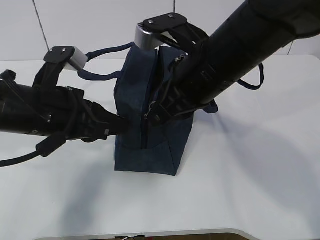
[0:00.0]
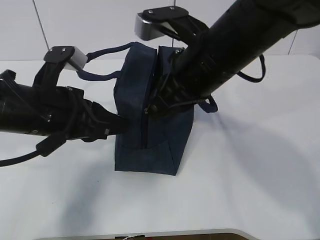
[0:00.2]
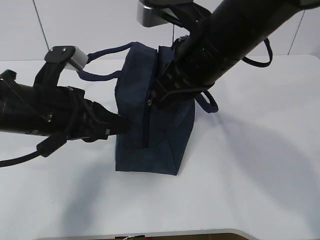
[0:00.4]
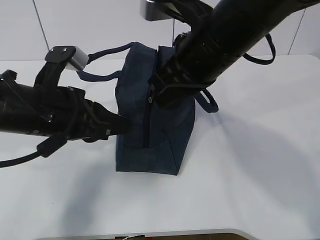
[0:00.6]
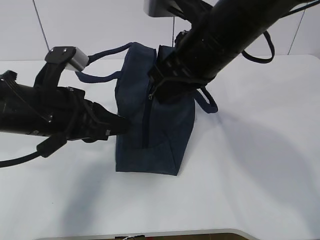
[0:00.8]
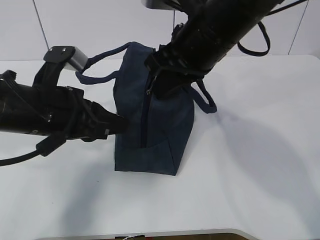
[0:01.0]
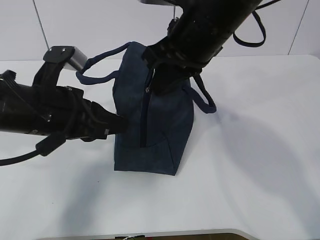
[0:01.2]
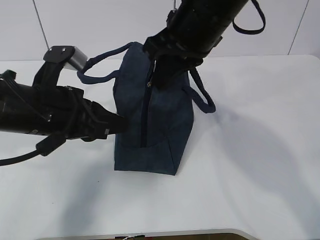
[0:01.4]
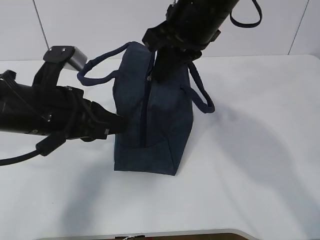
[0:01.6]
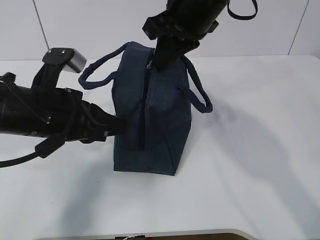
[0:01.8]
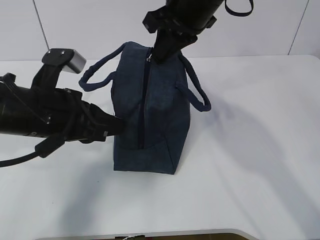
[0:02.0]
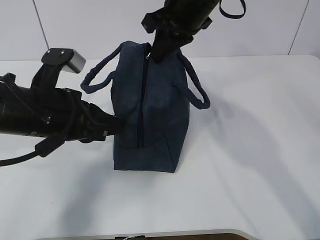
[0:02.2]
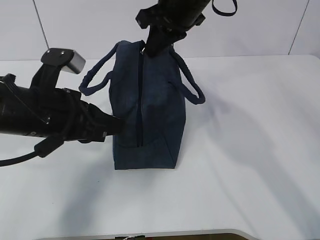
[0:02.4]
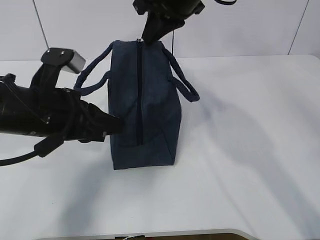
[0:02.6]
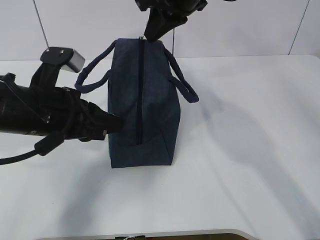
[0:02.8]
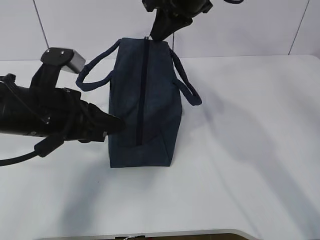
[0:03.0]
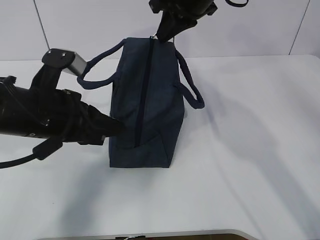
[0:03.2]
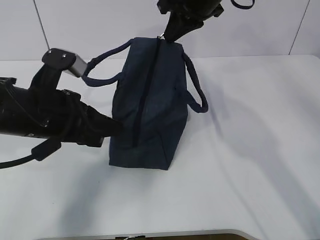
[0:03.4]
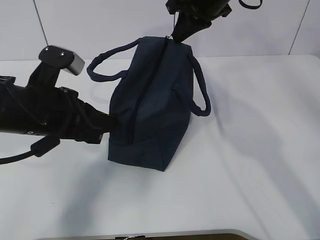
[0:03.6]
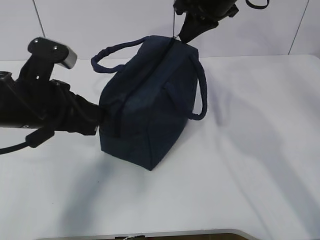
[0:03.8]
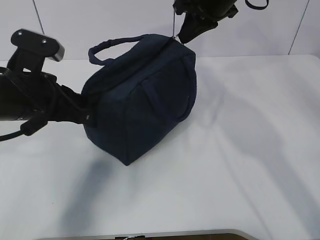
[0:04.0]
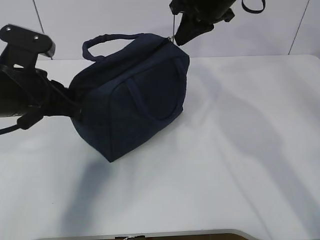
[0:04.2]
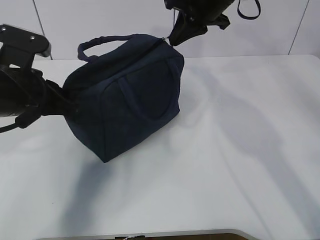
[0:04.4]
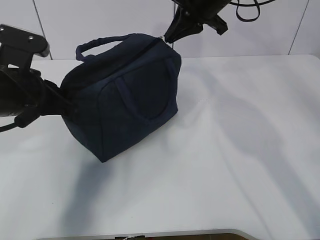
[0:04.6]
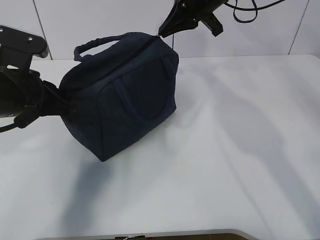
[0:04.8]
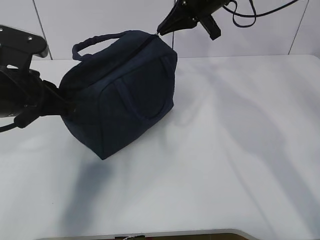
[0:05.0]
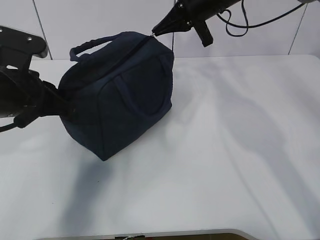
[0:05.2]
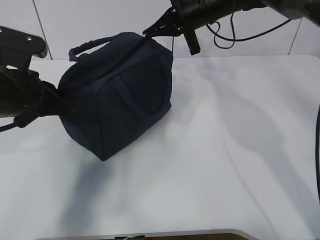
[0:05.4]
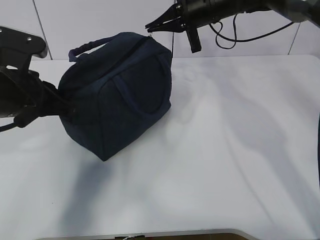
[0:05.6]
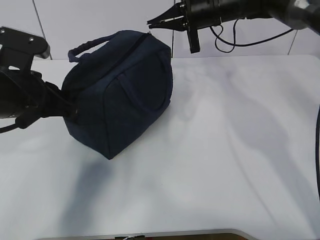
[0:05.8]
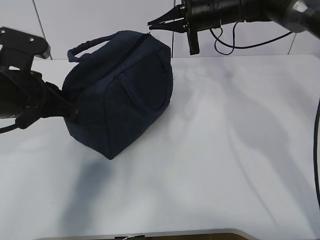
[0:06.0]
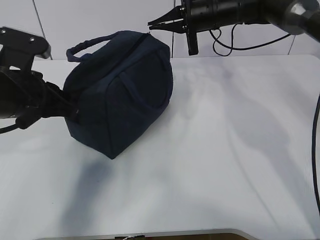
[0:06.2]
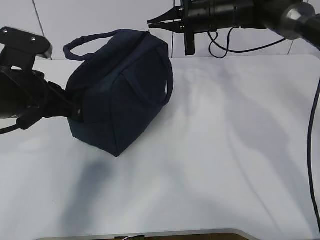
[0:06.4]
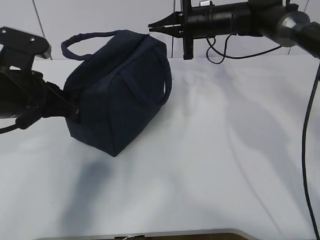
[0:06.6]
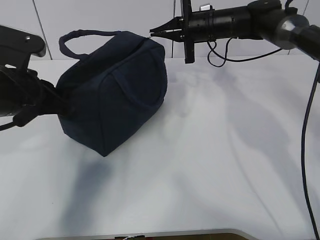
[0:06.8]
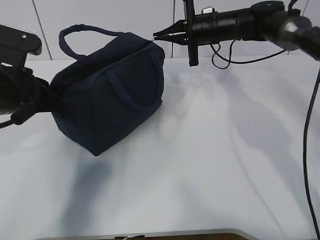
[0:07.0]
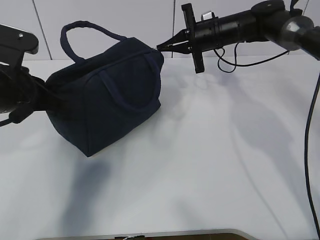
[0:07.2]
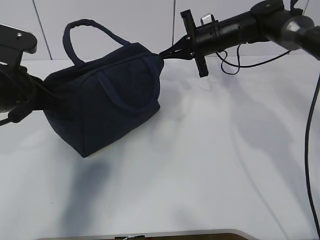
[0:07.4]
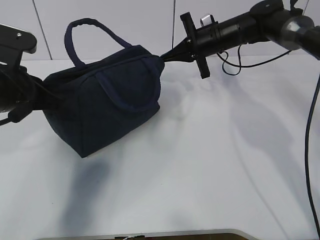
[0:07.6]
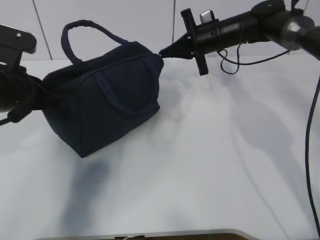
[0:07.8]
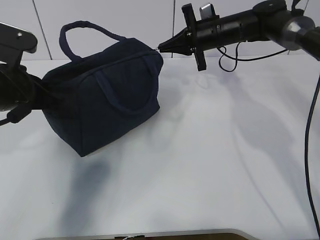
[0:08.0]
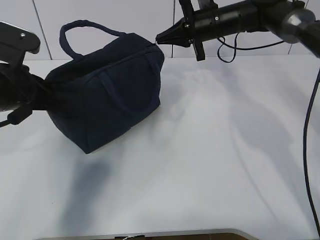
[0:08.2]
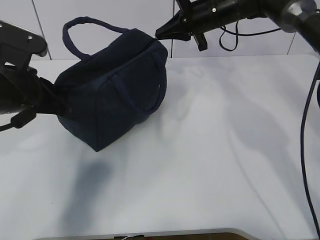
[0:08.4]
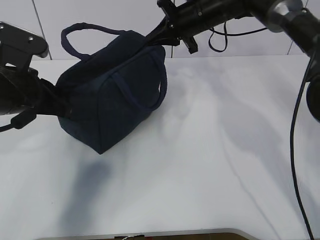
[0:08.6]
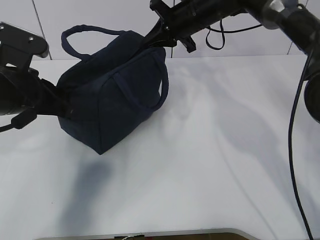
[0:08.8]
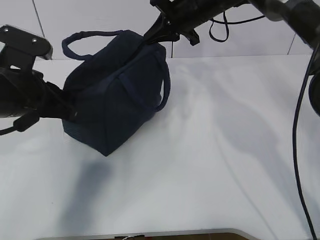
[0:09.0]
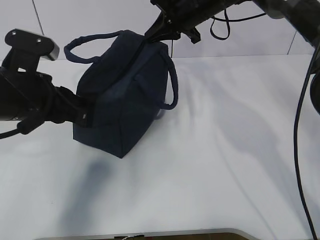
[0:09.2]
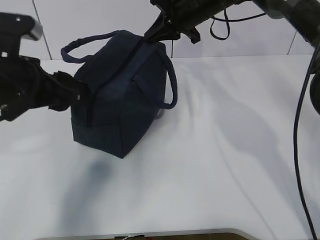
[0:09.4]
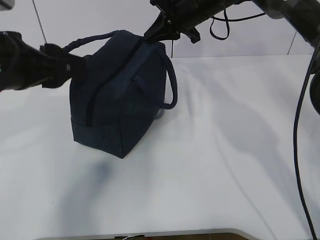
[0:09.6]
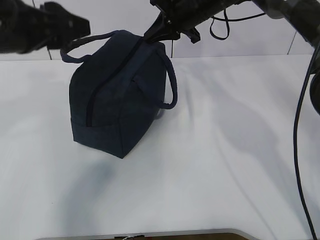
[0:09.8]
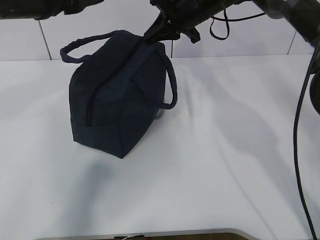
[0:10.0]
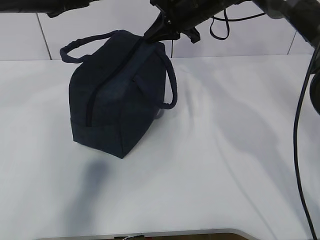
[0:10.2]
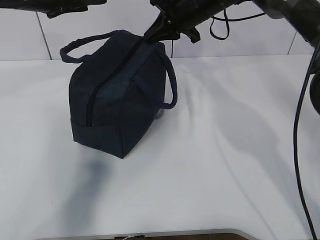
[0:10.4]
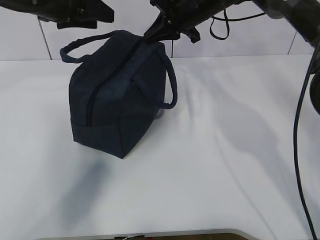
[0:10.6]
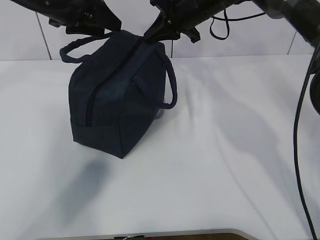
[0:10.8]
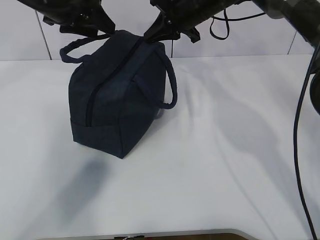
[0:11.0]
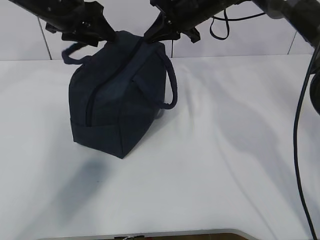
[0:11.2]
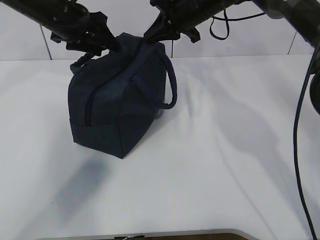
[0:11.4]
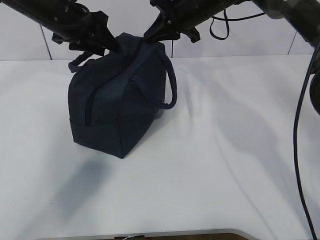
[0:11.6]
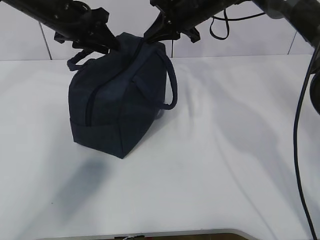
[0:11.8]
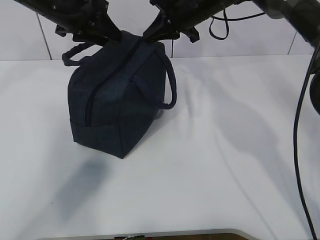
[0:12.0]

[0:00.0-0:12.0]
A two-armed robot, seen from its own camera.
Step, 0:00.0 to 0:03.4: Pull the zipper with your right hand.
Step, 0:03.6 to 0:05.6: Grab the lunch bag with your left hand.
0:00.0 to 0:01.6: The right gripper goes roughly 5 cm forward.
0:01.6 to 0:03.0: The right gripper travels forward by about 10 cm.
0:03.0 to 0:04.4: The left gripper ends up about 5 cm from where it was, while the right gripper ends up some 5 cm from where it was.
0:04.4 to 0:06.0: The right gripper changes place by some 5 cm.
0:06.0 to 0:07.6: The right gripper moves downward, roughly 5 cm.
0:07.6 to 0:09.0: The right gripper is displaced upward and to the left by some 10 cm.
0:09.0 to 0:10.4: The left gripper travels upward and forward by approximately 15 cm, and opens.
0:10.4 to 0:12.0: The left gripper goes approximately 10 cm forward.

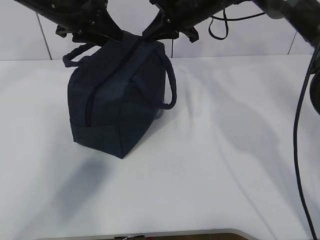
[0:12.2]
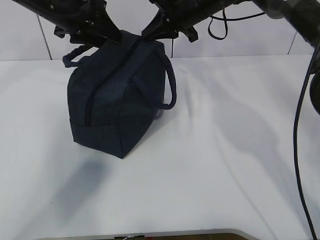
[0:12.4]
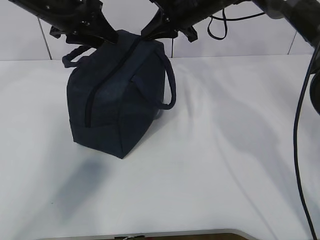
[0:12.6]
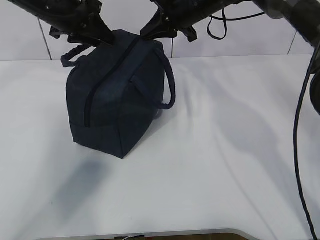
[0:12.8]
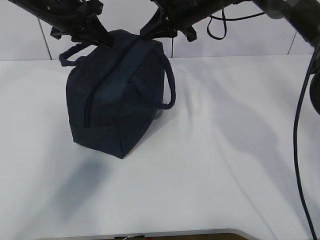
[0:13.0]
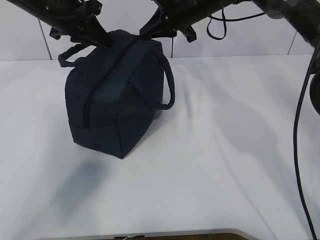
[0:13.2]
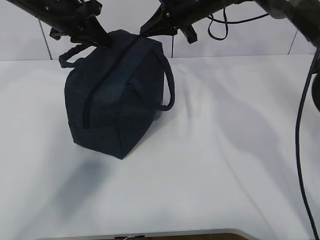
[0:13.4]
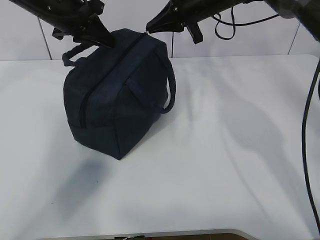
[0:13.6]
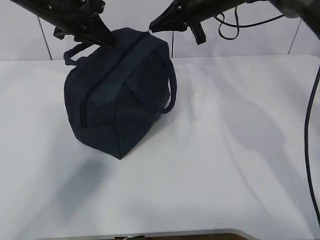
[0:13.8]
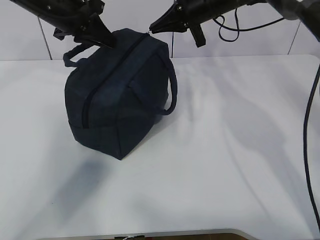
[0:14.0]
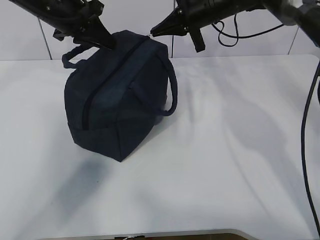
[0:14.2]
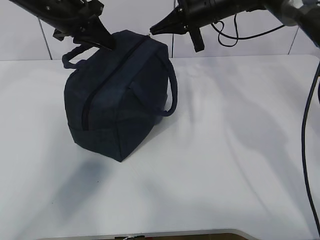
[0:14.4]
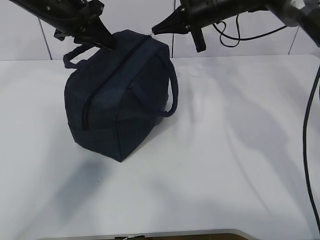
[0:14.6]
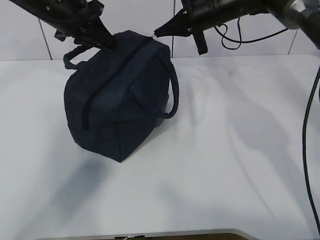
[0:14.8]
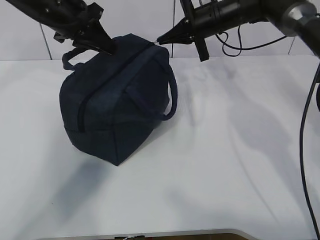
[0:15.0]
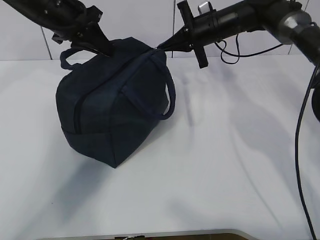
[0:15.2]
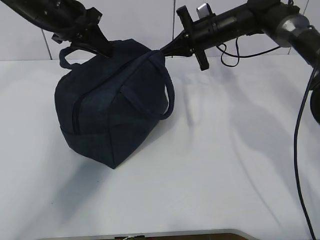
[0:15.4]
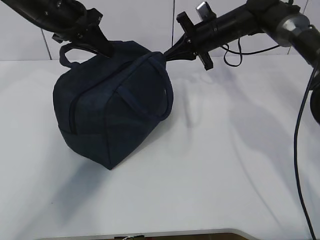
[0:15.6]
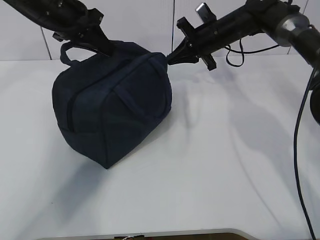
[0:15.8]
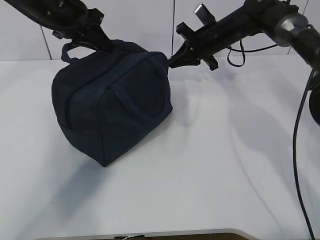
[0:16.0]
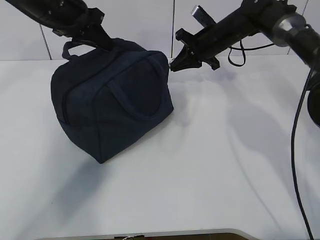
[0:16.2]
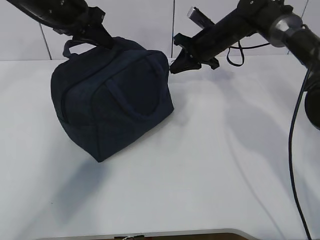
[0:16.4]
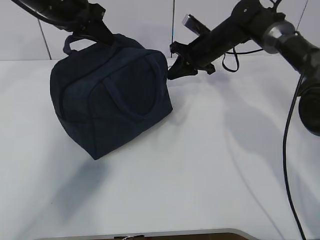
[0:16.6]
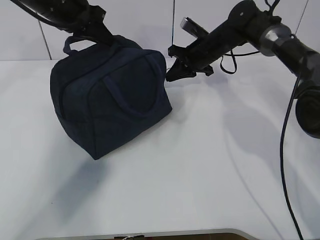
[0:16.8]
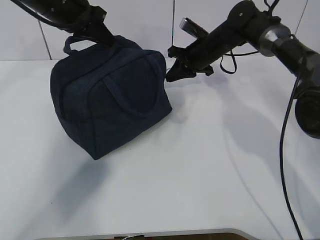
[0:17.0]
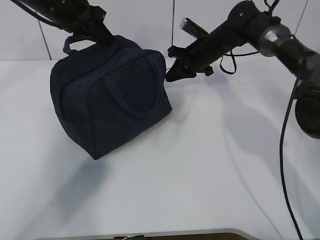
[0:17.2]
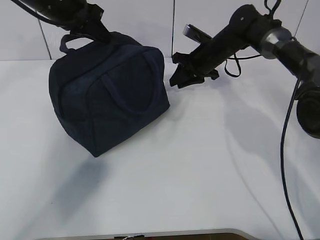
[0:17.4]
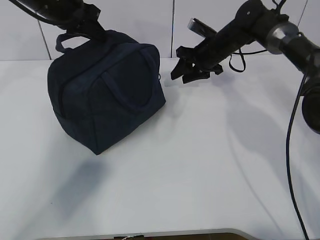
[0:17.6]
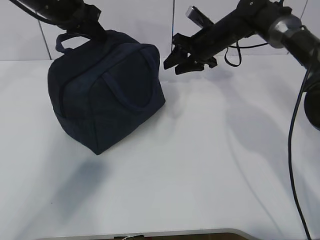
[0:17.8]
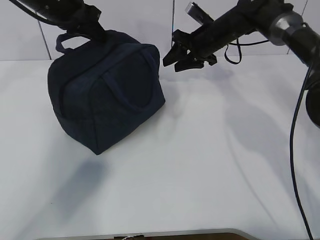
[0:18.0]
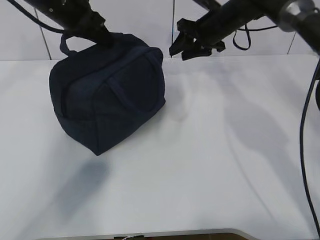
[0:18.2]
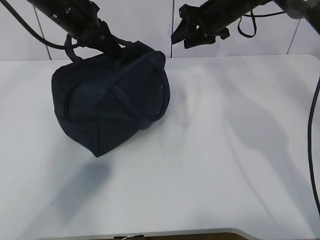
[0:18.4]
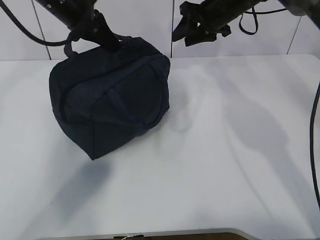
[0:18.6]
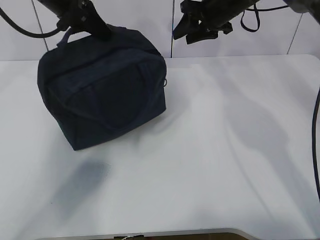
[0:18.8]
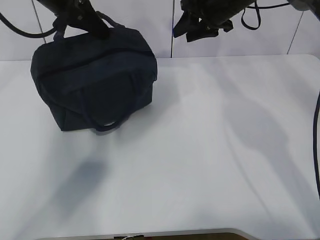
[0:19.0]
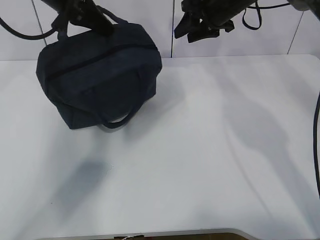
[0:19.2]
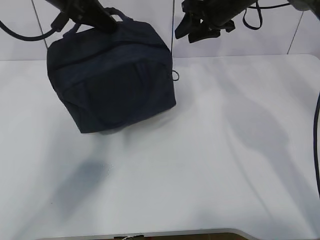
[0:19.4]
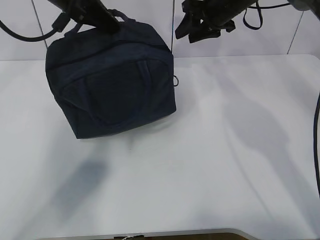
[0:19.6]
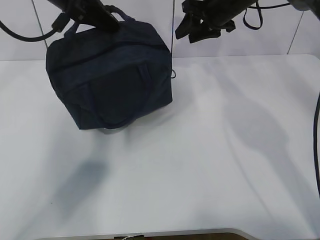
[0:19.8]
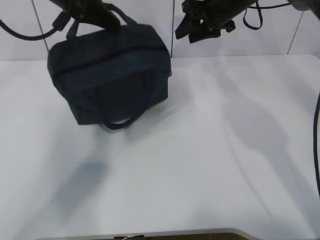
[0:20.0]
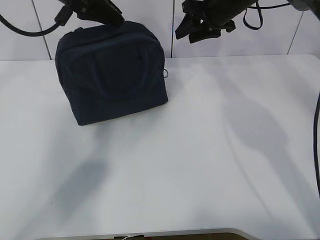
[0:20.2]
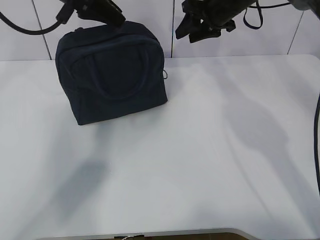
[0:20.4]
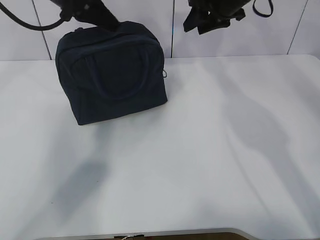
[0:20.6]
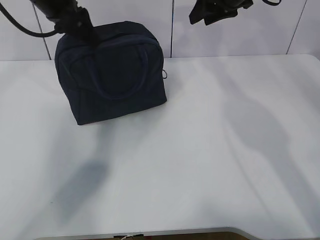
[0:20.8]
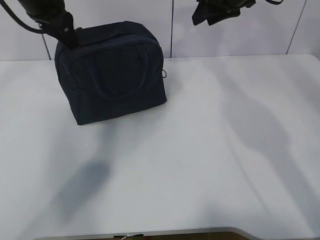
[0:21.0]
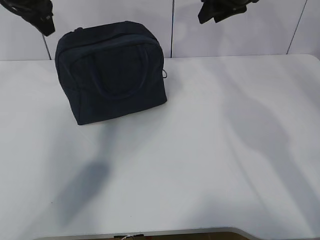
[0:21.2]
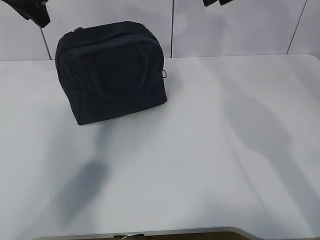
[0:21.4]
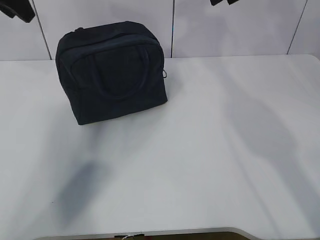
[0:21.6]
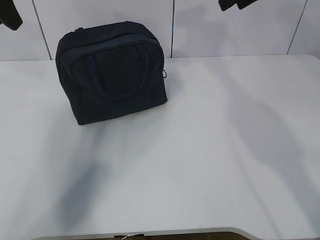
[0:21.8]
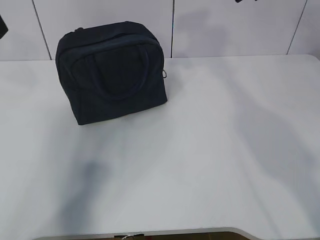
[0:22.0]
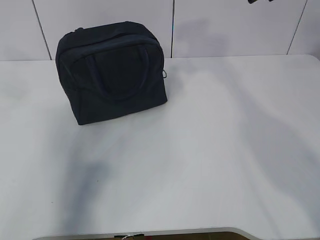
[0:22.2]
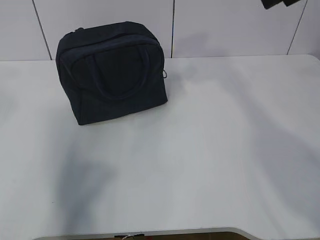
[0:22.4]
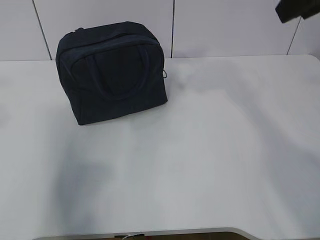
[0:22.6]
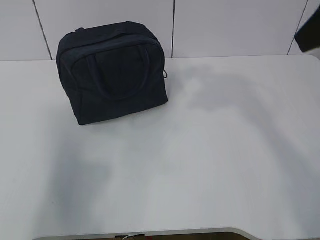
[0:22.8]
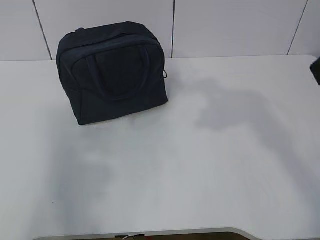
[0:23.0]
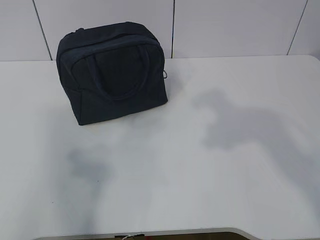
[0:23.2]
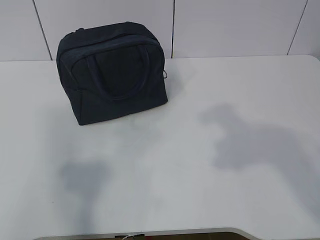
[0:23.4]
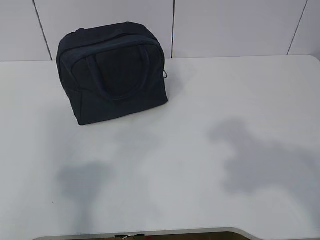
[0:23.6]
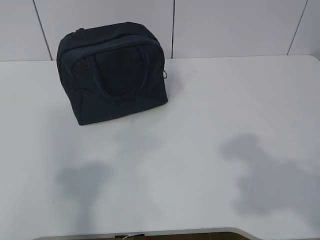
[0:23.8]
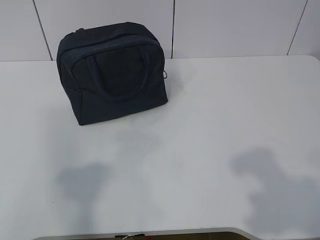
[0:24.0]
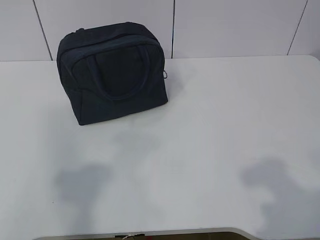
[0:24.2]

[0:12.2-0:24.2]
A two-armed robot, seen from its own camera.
0:12.2 to 0:13.8: The left gripper closes.
0:13.8 to 0:15.2: The right gripper goes approximately 5 cm downward.
0:16.6 to 0:18.2: The right gripper moves upward, about 5 cm, and opens up.
0:19.8 to 0:21.2: The right gripper changes place by roughly 5 cm, while the left gripper shifts some 5 cm to the left, and opens up.
0:21.2 to 0:22.6: The right gripper is displaced backward and upward by about 25 cm. Meanwhile the left gripper heads backward, covering some 25 cm.
0:22.6 to 0:24.2: The left gripper is displaced backward by about 15 cm; the right gripper heads backward and downward, covering roughly 30 cm.
